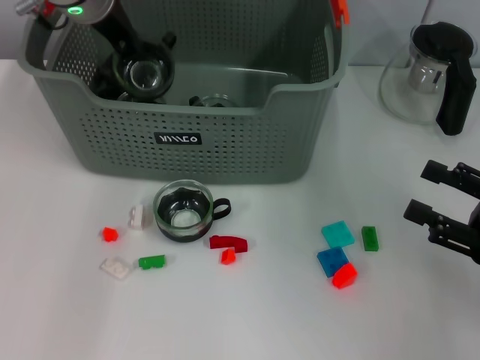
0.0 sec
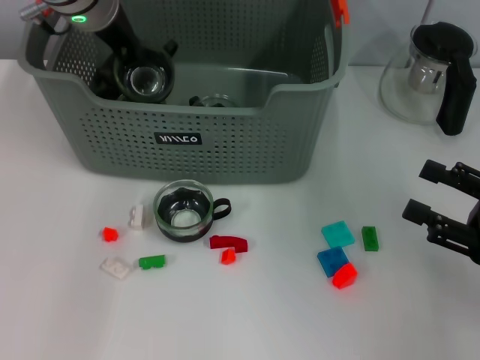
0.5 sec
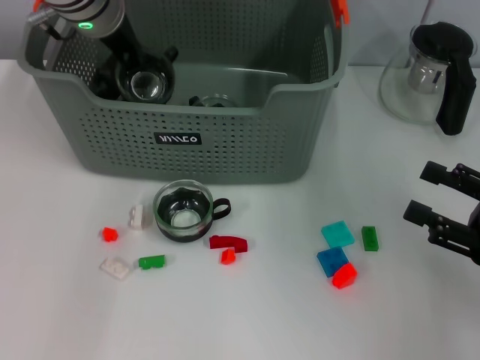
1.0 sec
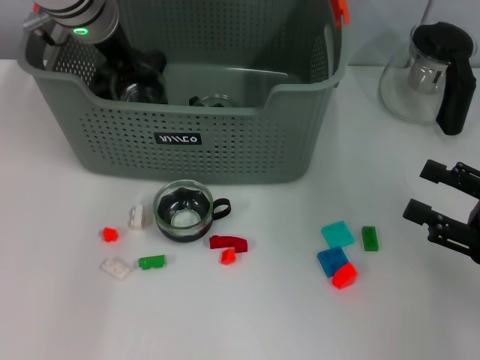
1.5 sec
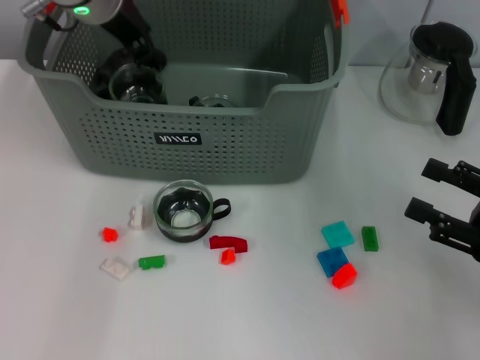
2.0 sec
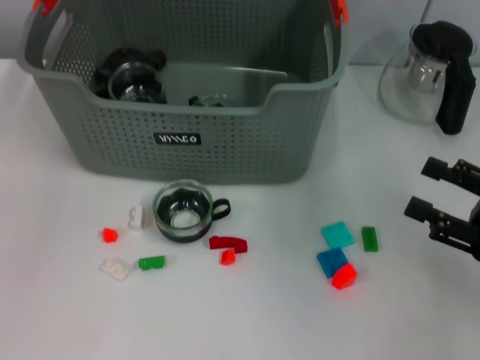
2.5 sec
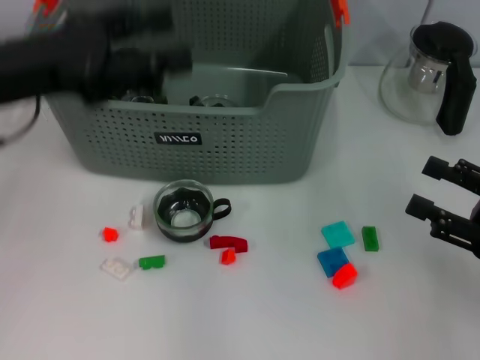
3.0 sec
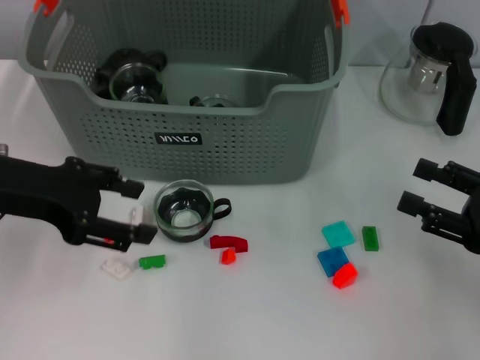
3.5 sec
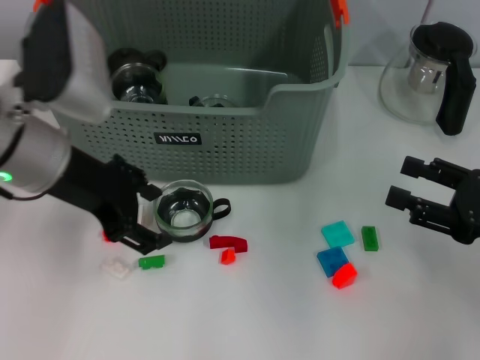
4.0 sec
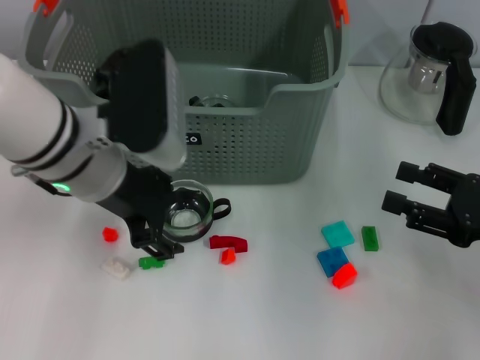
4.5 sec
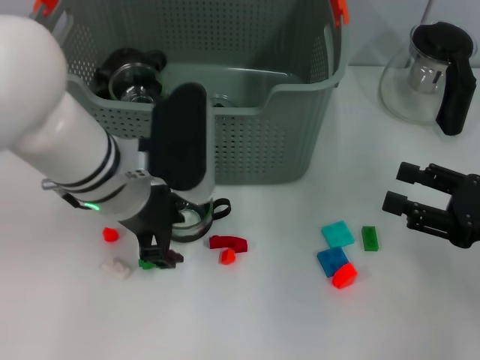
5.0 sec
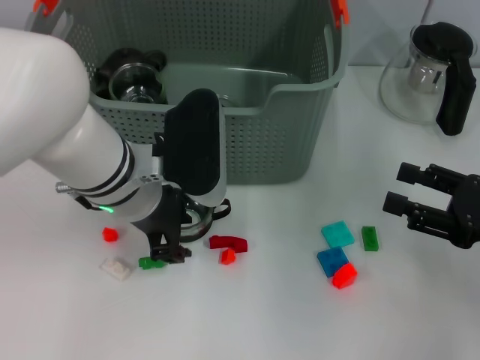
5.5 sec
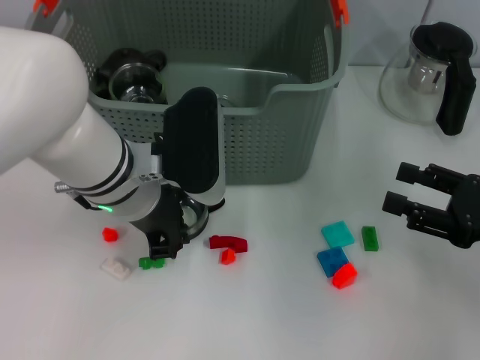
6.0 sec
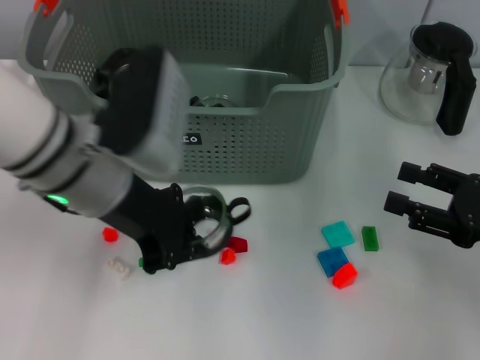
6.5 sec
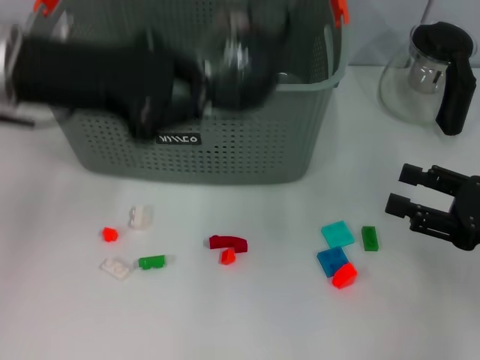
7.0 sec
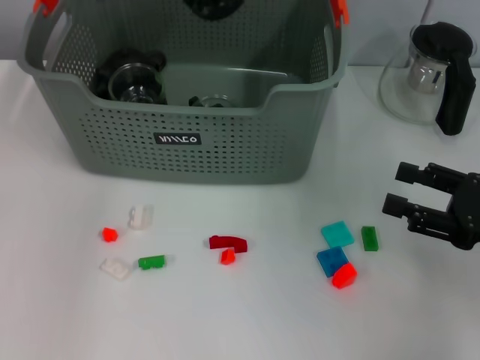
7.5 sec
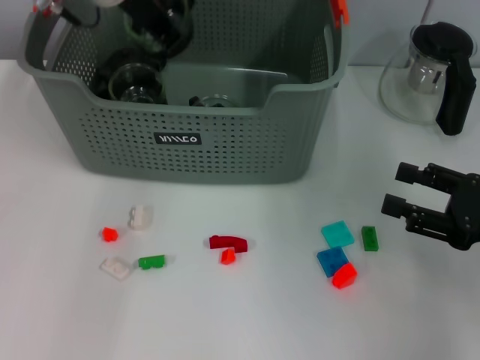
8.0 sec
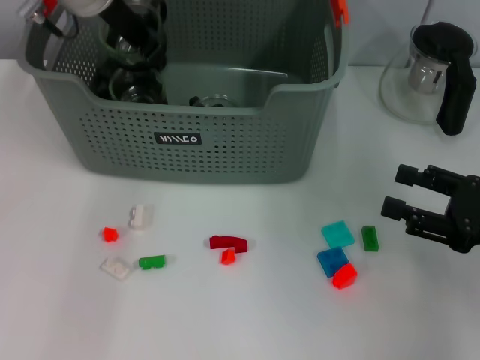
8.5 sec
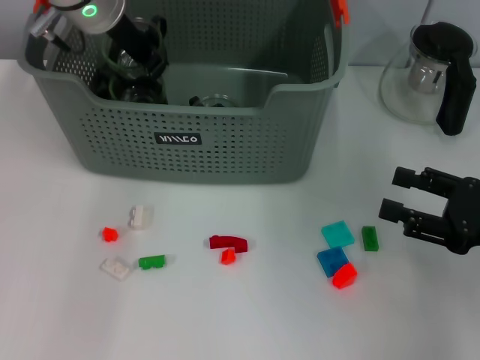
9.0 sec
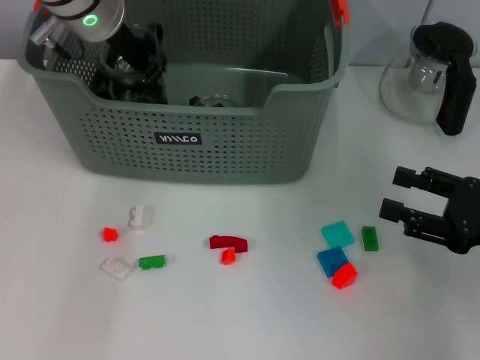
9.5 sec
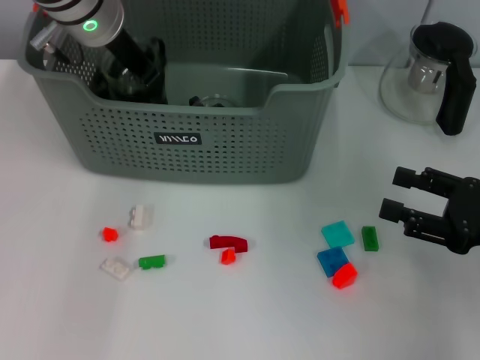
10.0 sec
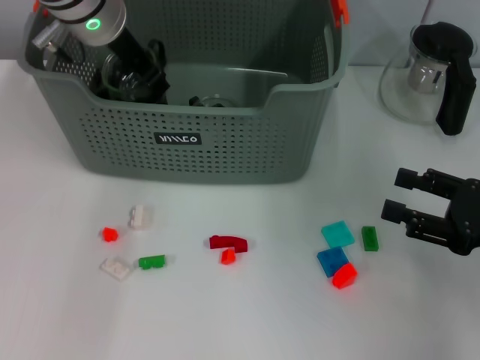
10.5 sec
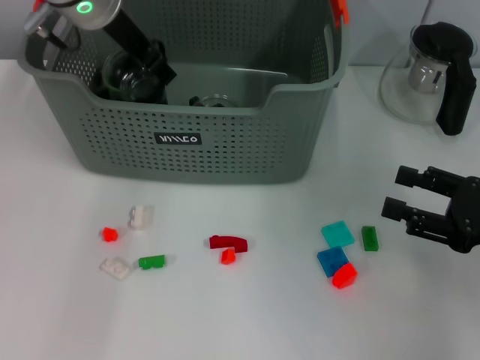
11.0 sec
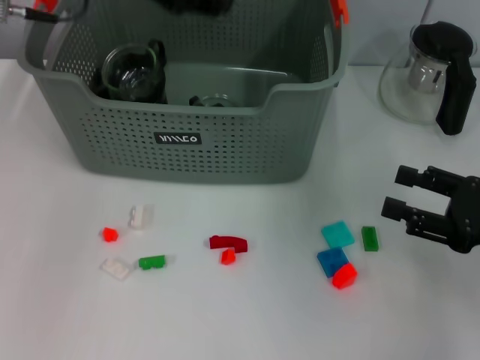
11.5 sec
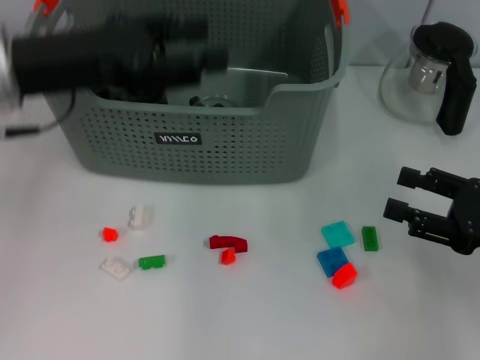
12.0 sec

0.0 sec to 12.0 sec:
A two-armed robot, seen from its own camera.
Task of the whole recording: pick up the teacup on the table and place it into the storage bin, pick up the block on the table and place it into the storage bin.
Step, 2.0 sec to 5.5 sec: Grasp the cup with left gripper.
Step, 6.5 sec to 10.0 sec: Place the cup in the storage box with left gripper.
0.0 sec to 2.0 sec: The left gripper opens.
2.0 sec to 4.0 sec: The left gripper goes roughly 15 cm backward, and opens its fingers.
4.0 sec to 6.0 sec: The left gripper heads to the right and downward, covering roughly 10 cm, and closes.
6.0 sec to 8.0 sec: The left gripper goes roughly 15 cm upward and forward.
8.0 sec to 10.0 sec: The left gripper shifts by about 5 cm.
10.0 sec to 12.0 sec: The left gripper goes some 15 cm backward and to the left, and opens.

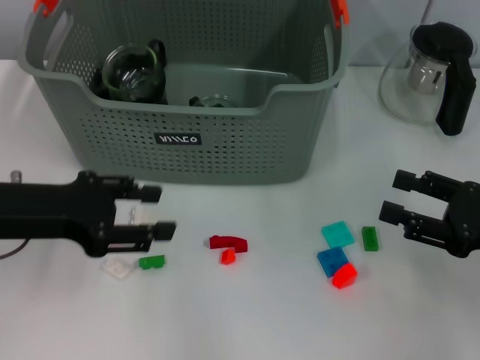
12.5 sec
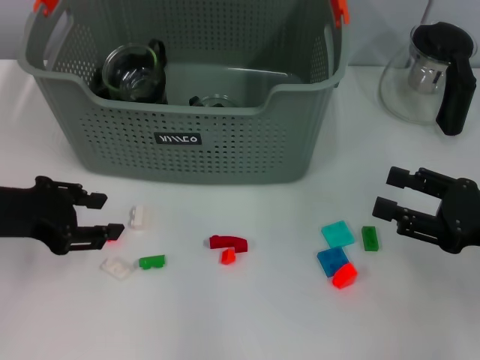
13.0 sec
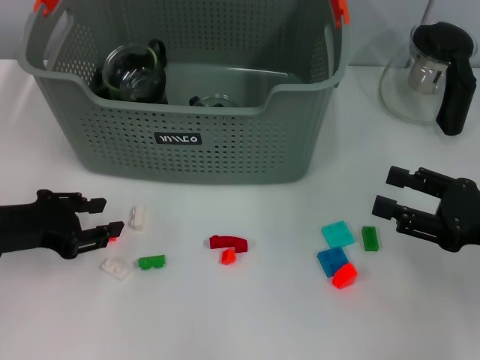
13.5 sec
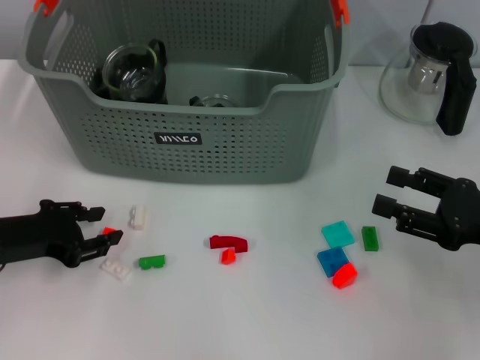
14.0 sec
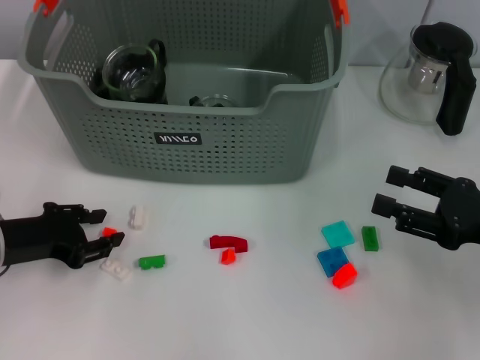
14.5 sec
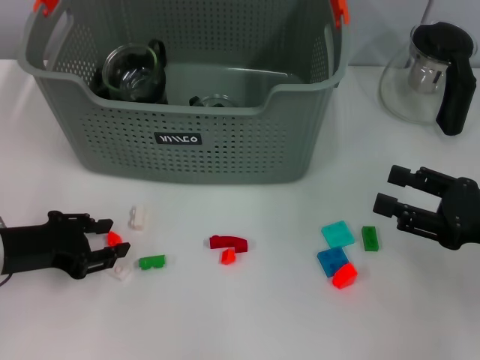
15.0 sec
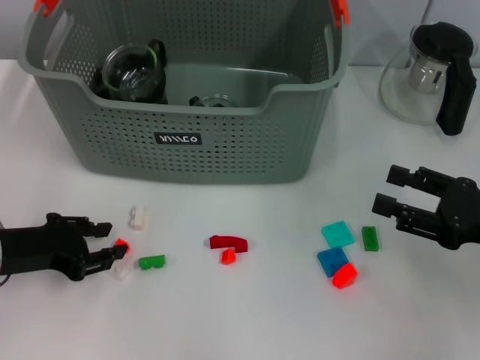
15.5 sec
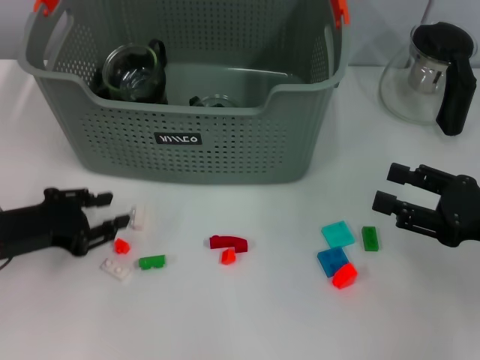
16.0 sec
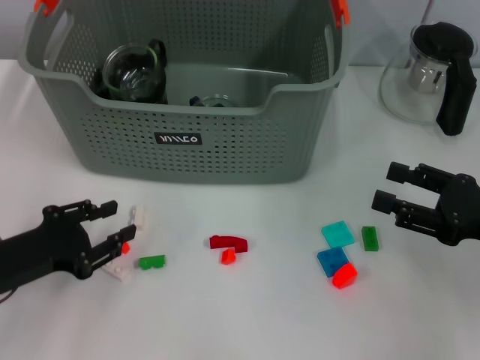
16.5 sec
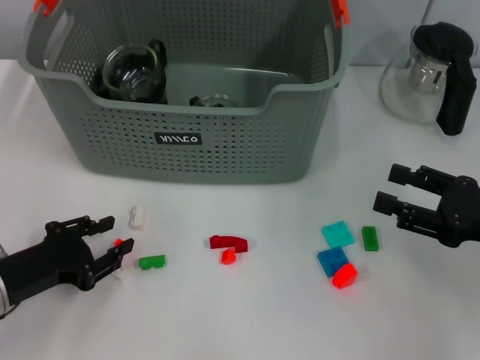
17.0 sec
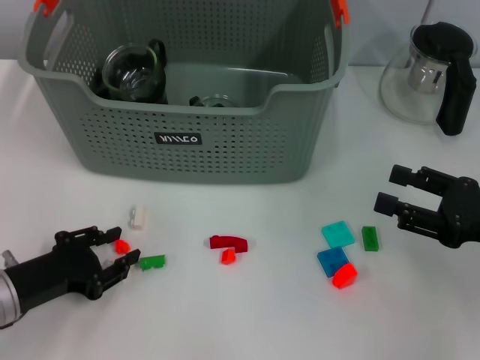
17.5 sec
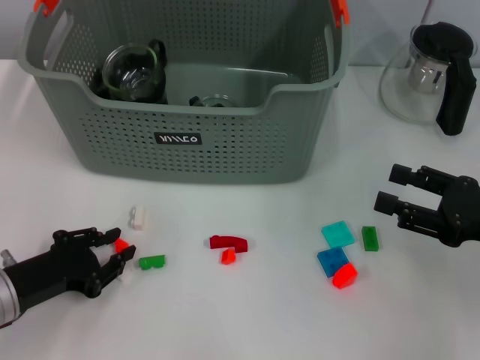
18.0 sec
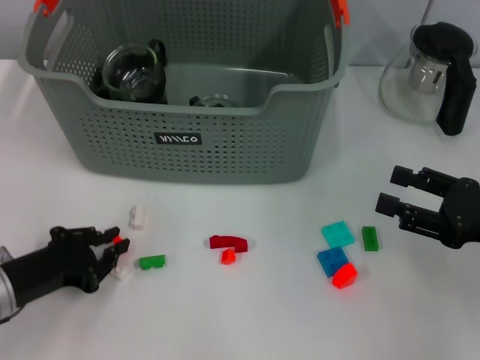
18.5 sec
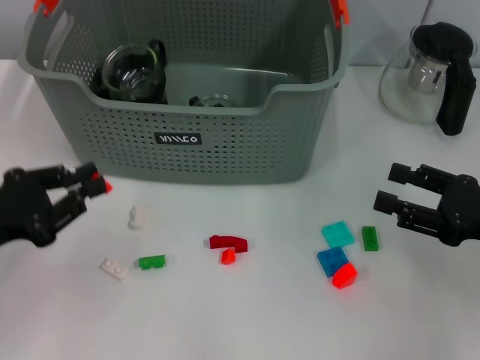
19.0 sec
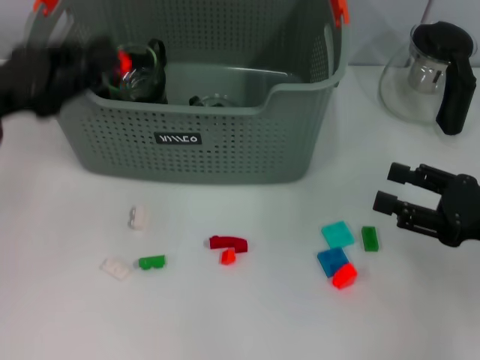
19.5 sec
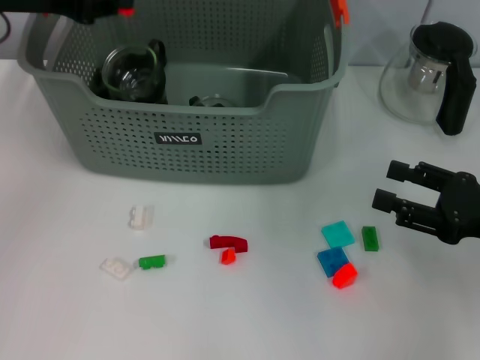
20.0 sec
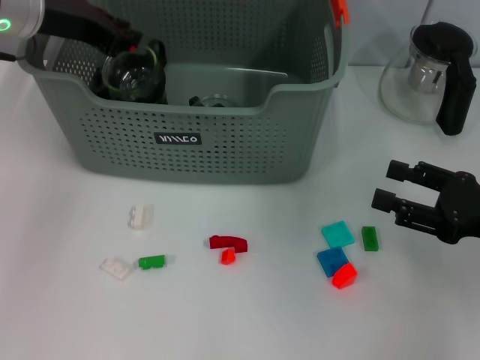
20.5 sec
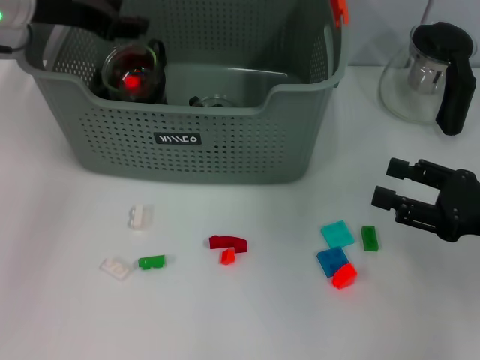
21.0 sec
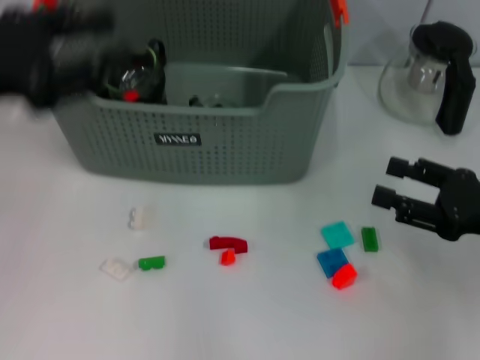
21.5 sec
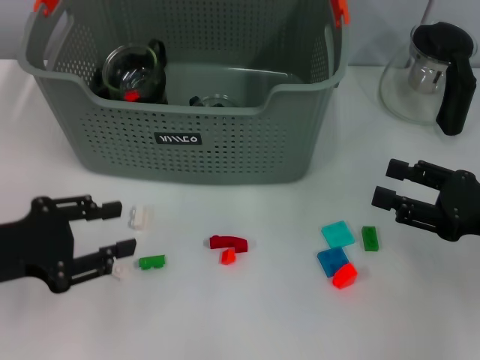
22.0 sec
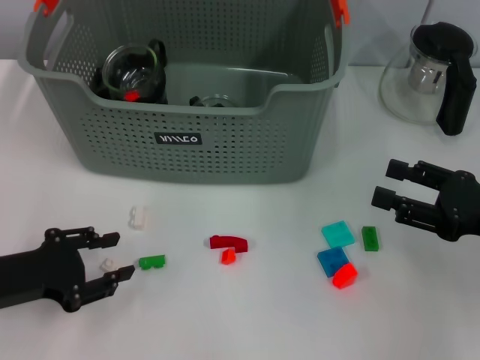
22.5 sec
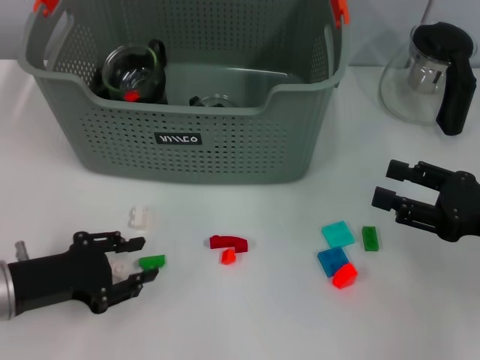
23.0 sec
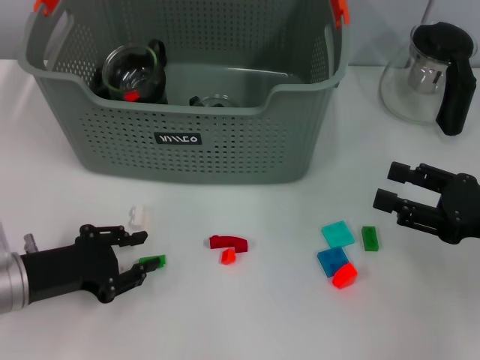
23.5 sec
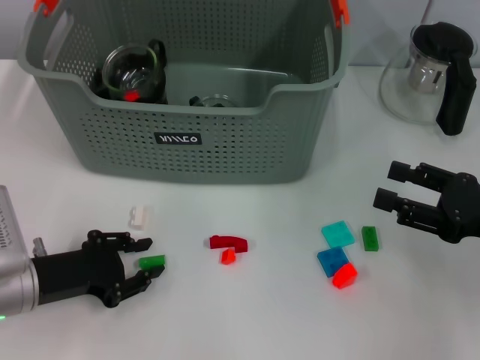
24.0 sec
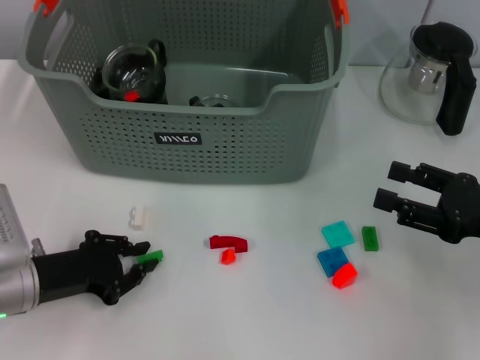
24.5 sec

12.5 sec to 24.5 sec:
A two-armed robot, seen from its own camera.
Task of the whole recording: pick up the teacup on the table and place it into the storage bin, pick up the block on the table and place it into the storage bin.
Step, 12.5 sec to 18.0 sec: Grasp the orange block with left gripper.
Step, 18.5 sec to 20.5 sec: Place the orange block in the storage box with left gripper.
12.5 sec to 14.5 sec: The left gripper heads downward, covering about 10 cm.
14.5 sec to 16.5 sec: The grippers make only small movements.
16.5 sec to 18.5 sec: The grippers make only small movements.
18.5 sec to 20.5 sec: The left gripper heads upward and forward, covering some 30 cm.
20.5 sec to 22.5 sec: The left gripper heads backward and downward, covering some 25 cm, and opens up.
22.5 sec to 24.5 sec: The left gripper shifts by some 5 cm.

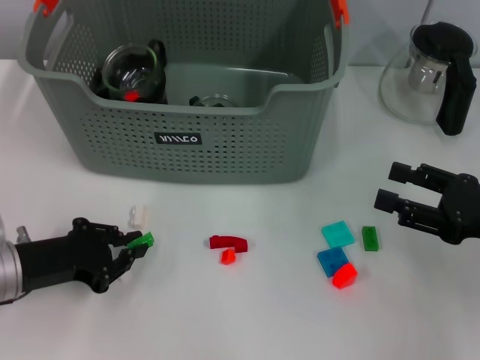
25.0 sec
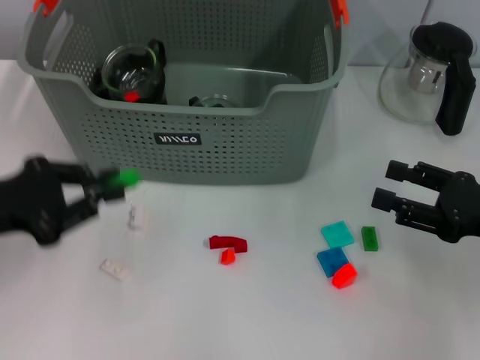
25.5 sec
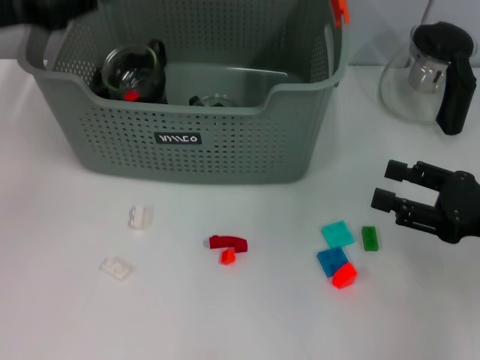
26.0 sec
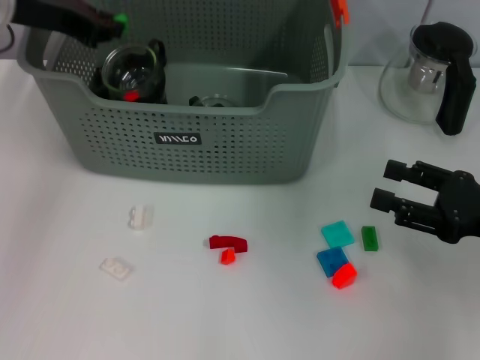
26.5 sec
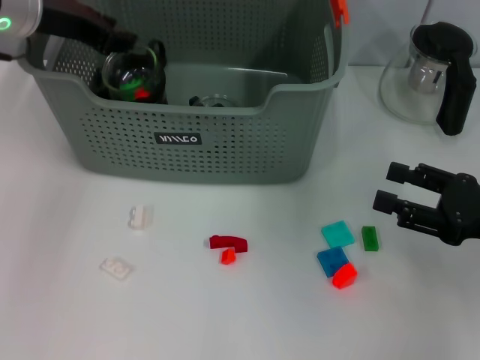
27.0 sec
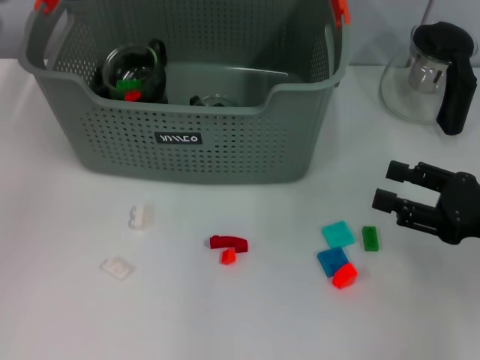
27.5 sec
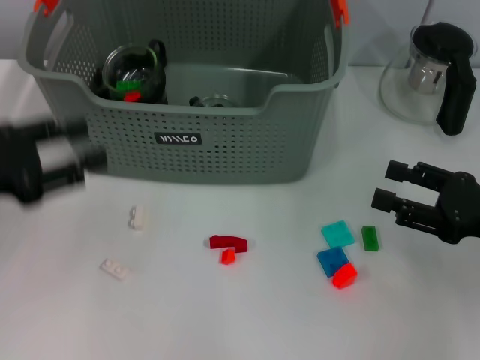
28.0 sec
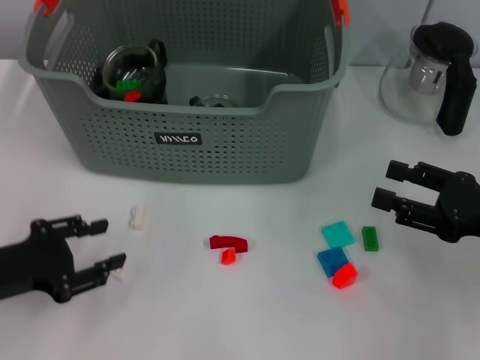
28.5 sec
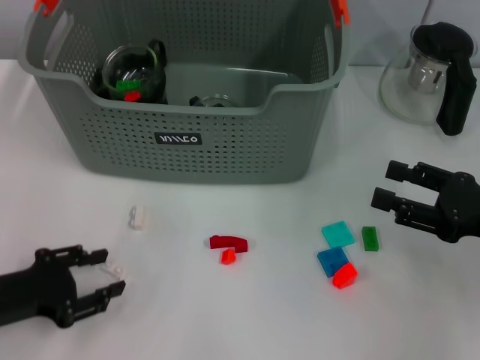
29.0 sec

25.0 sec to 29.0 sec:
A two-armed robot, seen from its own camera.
Task of the whole recording: pick up the teacup on the table and place it into the storage bin, pick up the block on the table and place it into the storage bin.
Step, 25.0 sec to 26.5 sec: Place the green block in the storage box with left gripper.
25.0 sec to 27.0 sec: The left gripper goes some 25 cm upward and forward.
27.0 sec to 29.0 sec: The left gripper heads backward and downward, covering about 30 cm.
